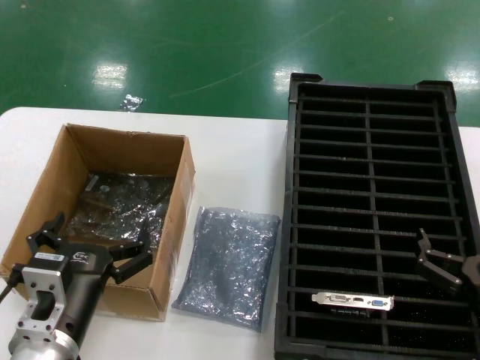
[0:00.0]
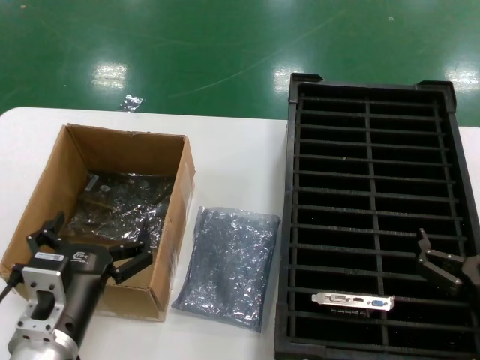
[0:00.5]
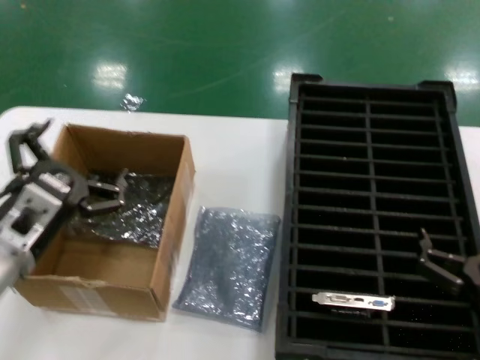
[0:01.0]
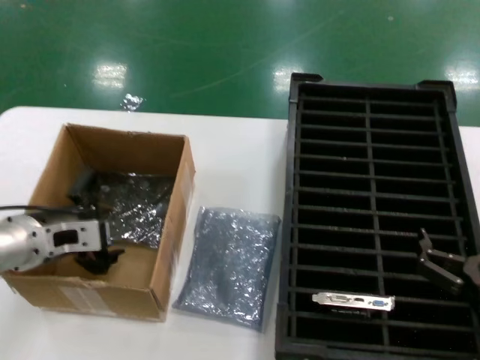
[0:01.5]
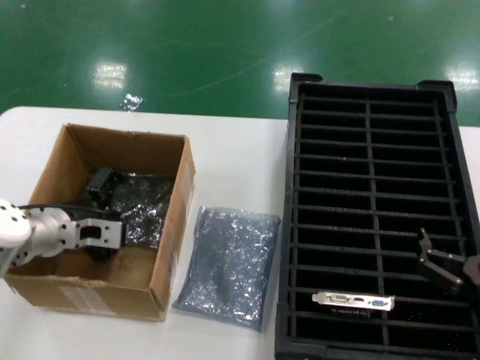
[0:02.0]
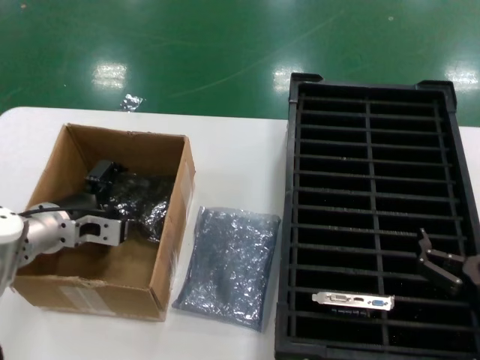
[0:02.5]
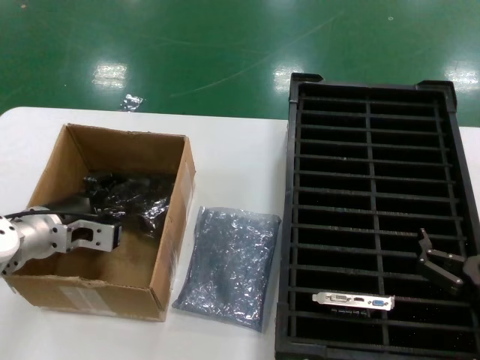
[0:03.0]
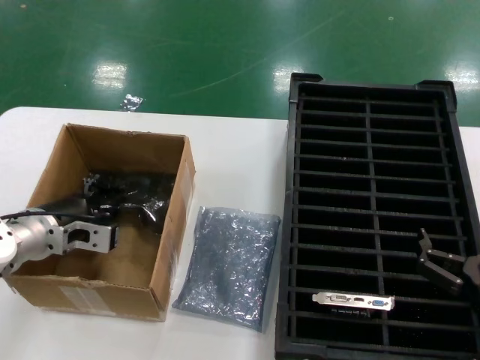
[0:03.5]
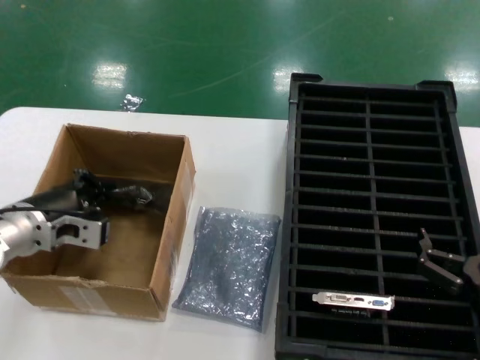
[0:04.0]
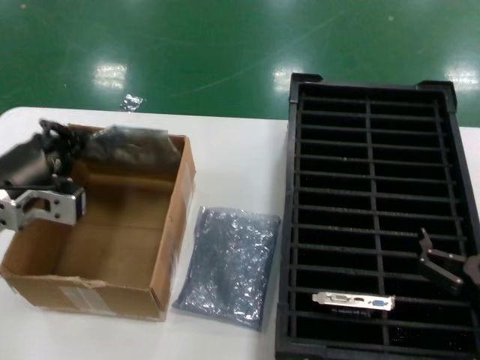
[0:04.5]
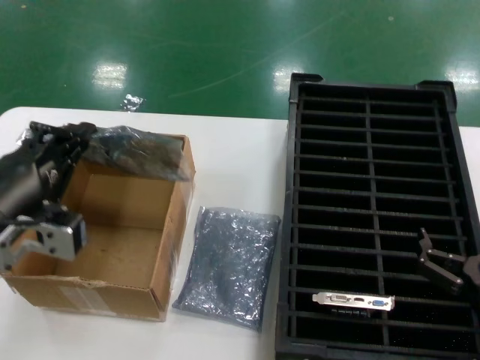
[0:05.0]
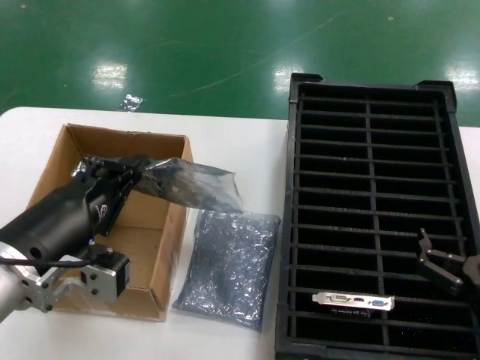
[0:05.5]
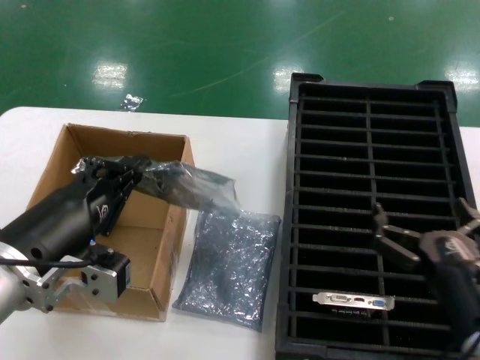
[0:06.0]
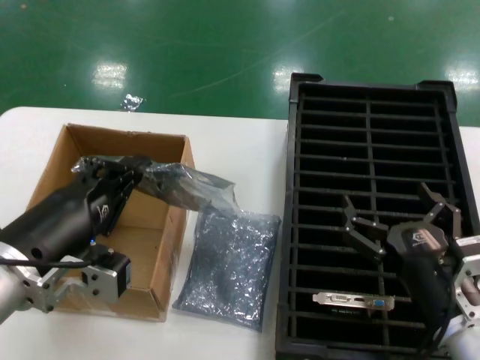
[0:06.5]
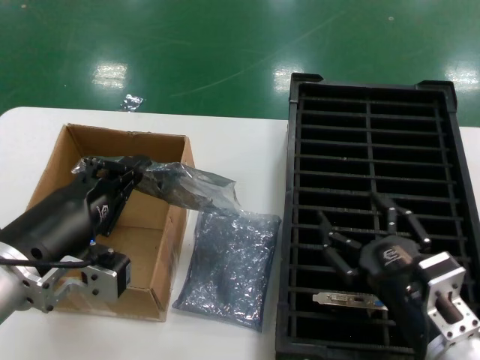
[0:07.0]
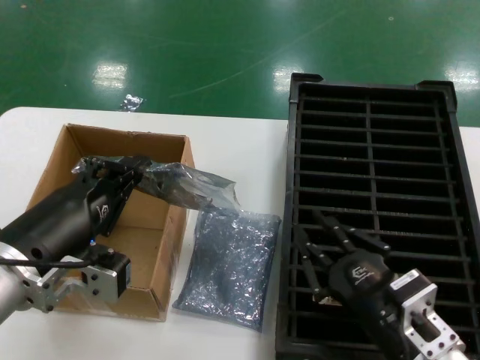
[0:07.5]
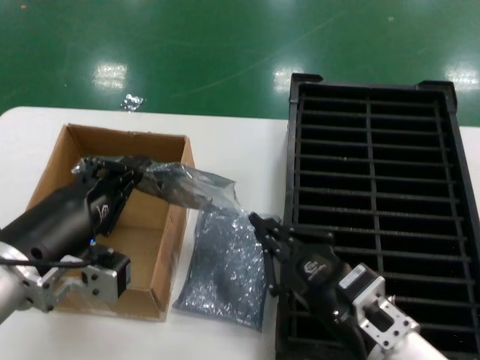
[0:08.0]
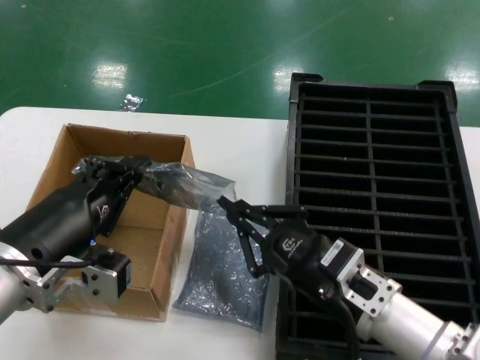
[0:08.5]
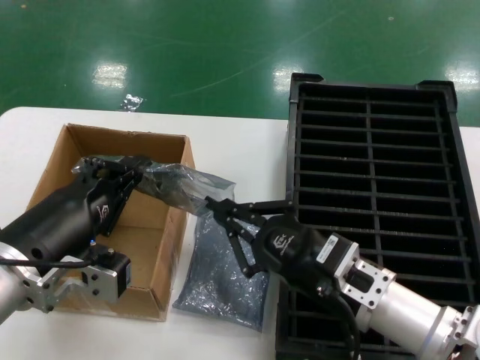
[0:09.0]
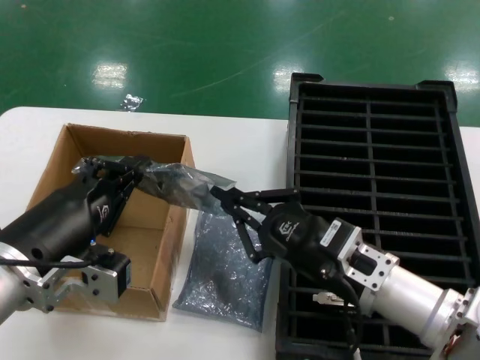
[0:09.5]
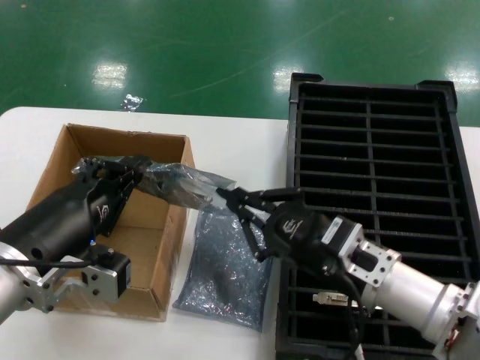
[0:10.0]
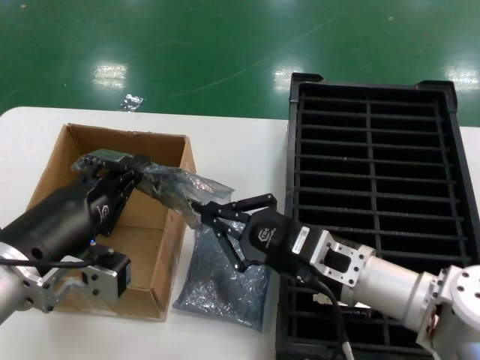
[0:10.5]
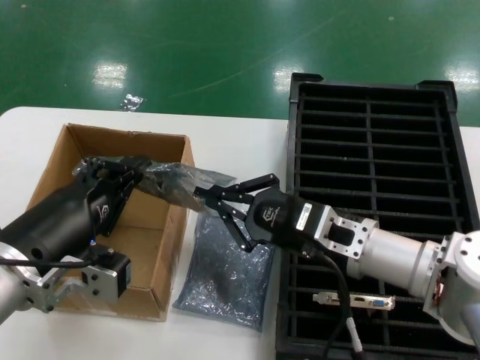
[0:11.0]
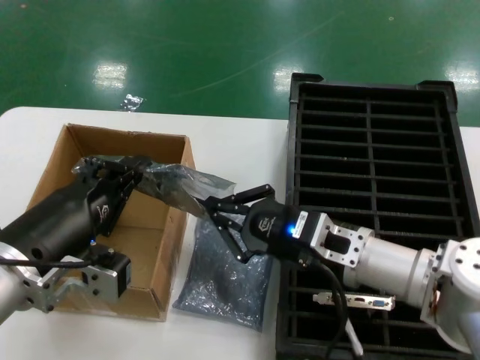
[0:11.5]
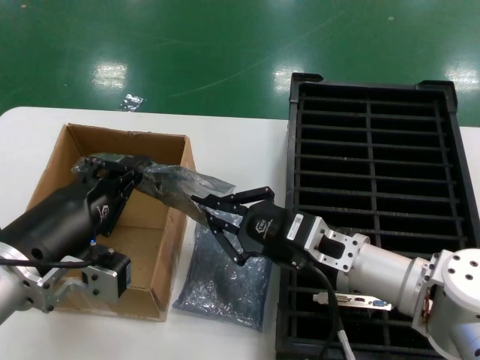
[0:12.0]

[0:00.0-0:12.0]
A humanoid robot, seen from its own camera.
Task of the whole recording: take out graphics card from box remove packaging put into black container.
Step, 0:00.0 to 0:03.5: Grasp the bag.
Step, 0:04.0 to 0:05.5: Lift the bag.
0:00.0 to 0:02.0: The left hand is displaced forward and to the left by some 20 cm.
0:02.0 to 0:04.0: The hands make only small movements.
0:04.0 to 0:06.0: The left hand heads backward and to the right, covering approximately 20 cm.
0:06.0 to 0:08.0: The right hand goes some 10 cm to the left.
0:08.0 to 0:10.0: The right hand shifts approximately 10 cm forward.
0:10.0 to 0:12.0: There are only small adjustments of the hands.

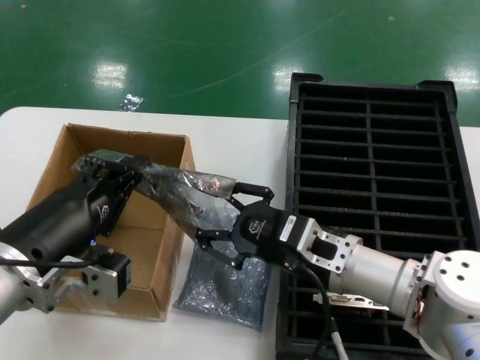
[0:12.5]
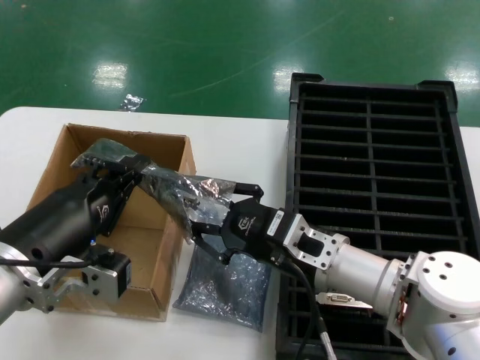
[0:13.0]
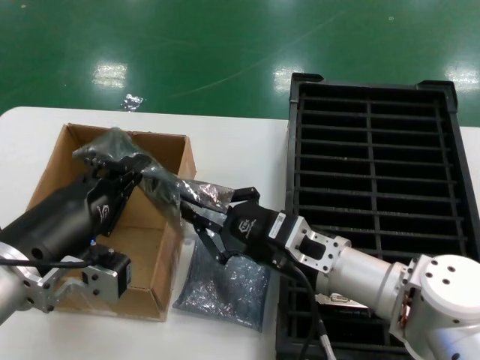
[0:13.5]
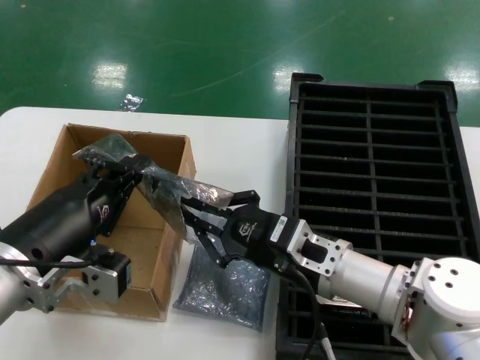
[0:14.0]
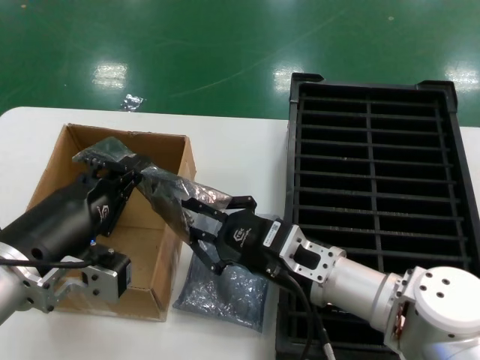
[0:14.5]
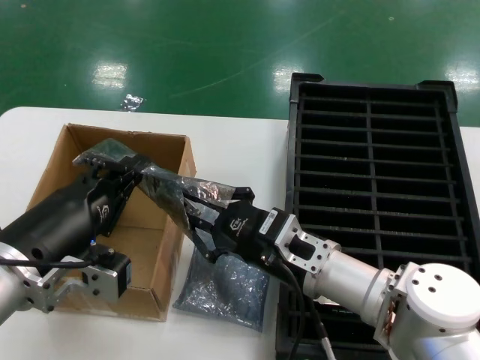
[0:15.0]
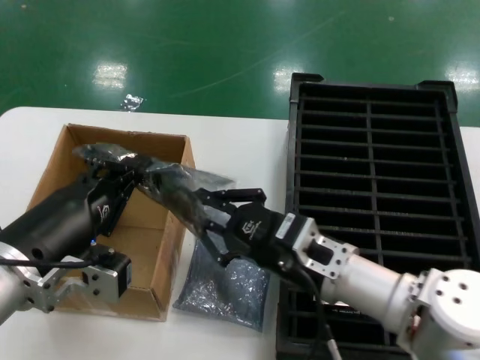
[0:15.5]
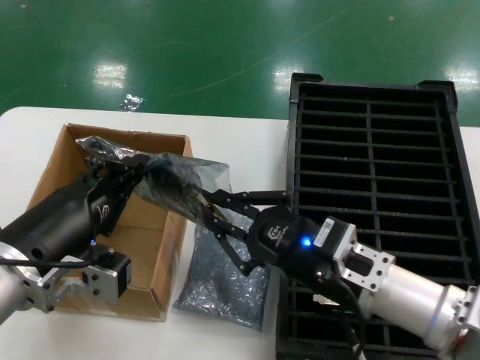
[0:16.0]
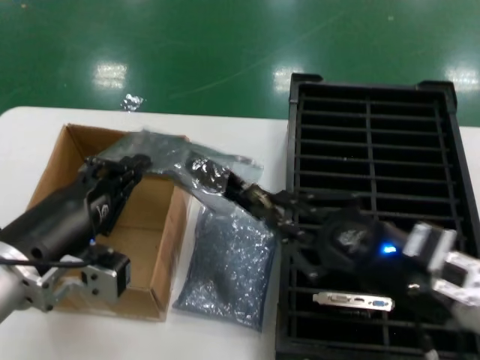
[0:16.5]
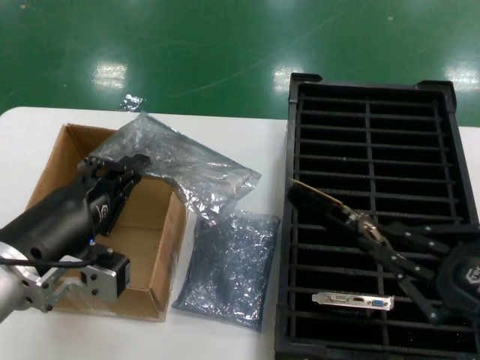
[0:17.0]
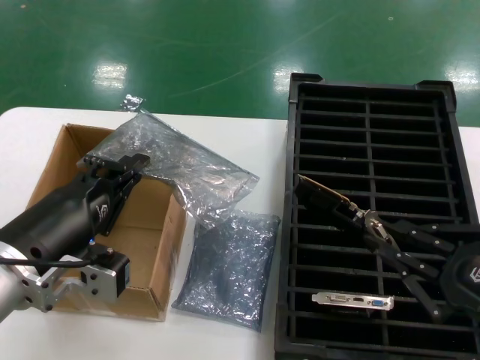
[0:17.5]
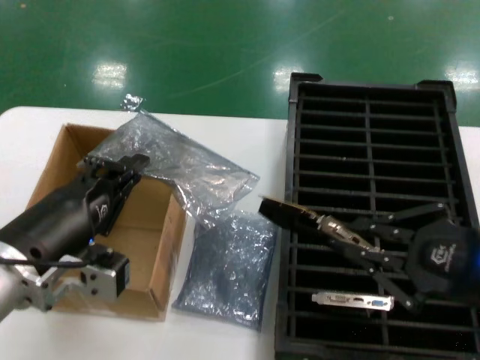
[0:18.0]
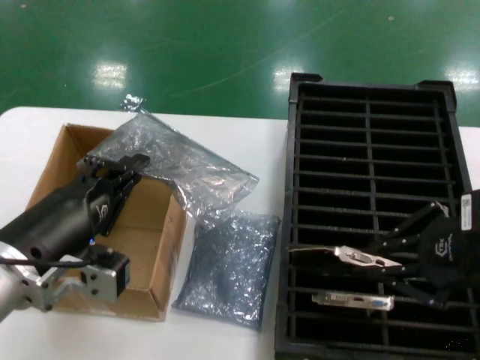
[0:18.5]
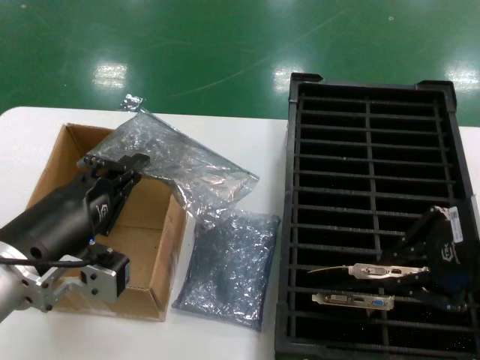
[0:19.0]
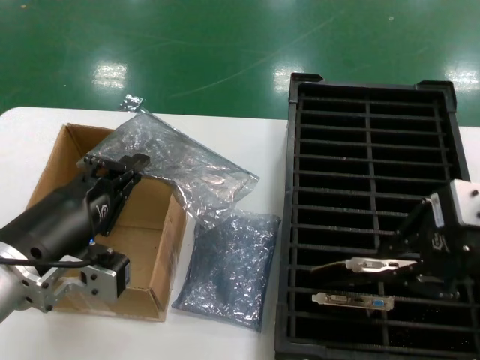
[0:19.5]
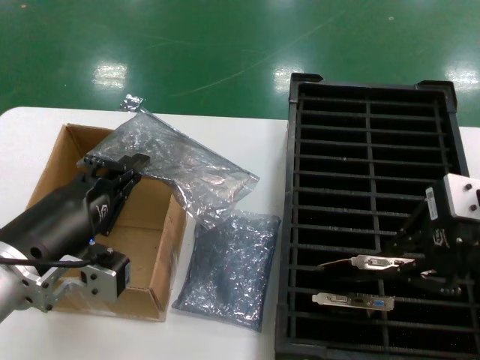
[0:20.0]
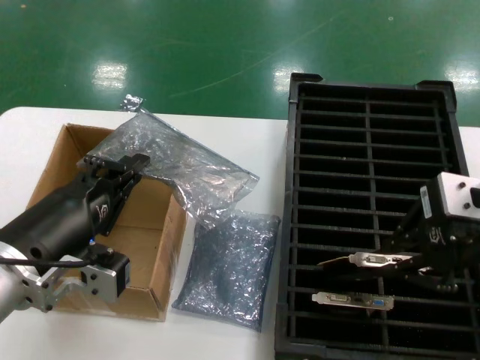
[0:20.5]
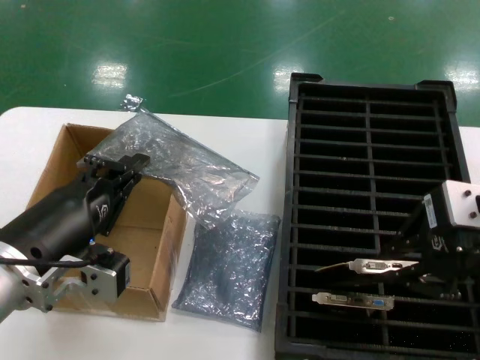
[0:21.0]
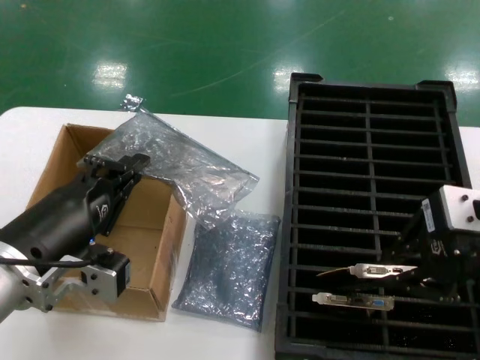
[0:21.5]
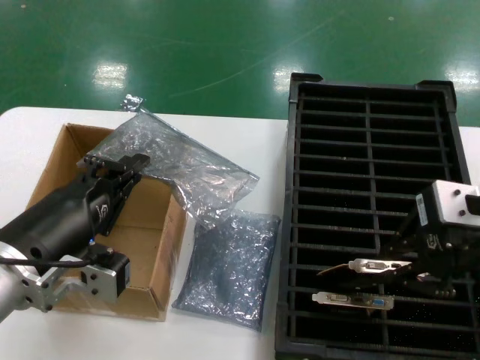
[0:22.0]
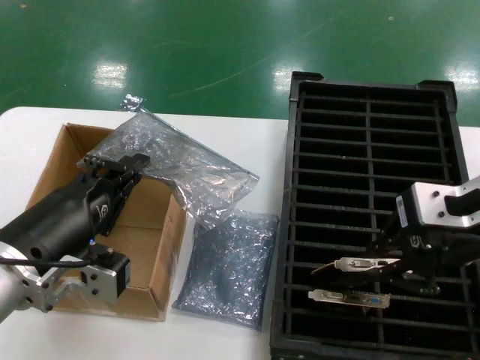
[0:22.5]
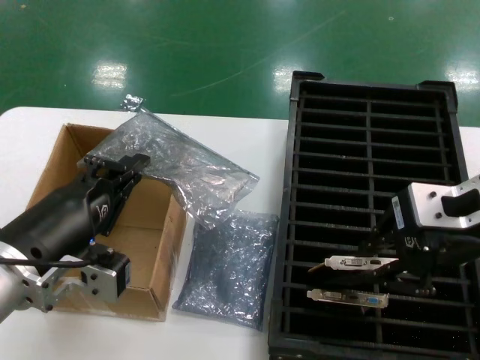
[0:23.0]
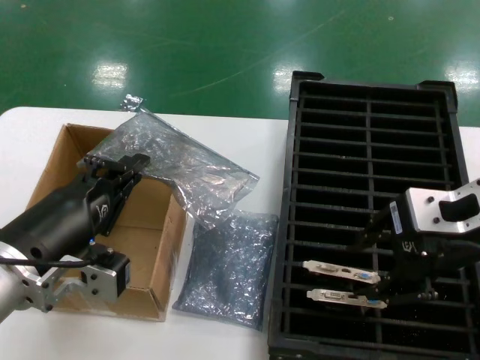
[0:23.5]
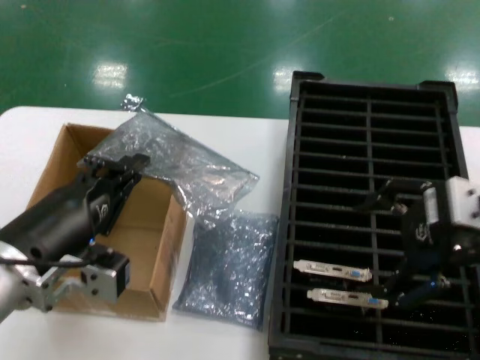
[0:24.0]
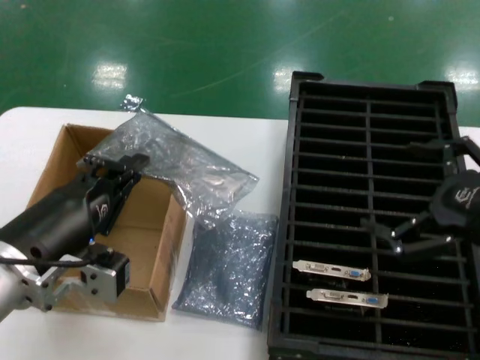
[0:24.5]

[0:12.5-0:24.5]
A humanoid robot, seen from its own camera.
Task of the whole recording: take out graphics card from box remove packaging put into black container.
Step, 0:12.5 to 0:16.5: Take out the hard disk of the bag.
Step, 0:17.0 to 0:23.5: Place the hard disk in the hard disk enclosure.
0:12.5 to 0:14.5: The hands make only small movements.
0:14.5 to 0:16.5: The right hand goes roughly 15 cm to the right, backward and upward.
0:16.5 to 0:18.5: The right hand goes approximately 15 cm upward.
0:18.5 to 0:20.5: The right hand moves approximately 5 cm.
0:20.5 to 0:22.5: There are only small adjustments of the hands.
0:22.5 to 0:24.5: The right hand is displaced to the right and downward by some 10 cm.

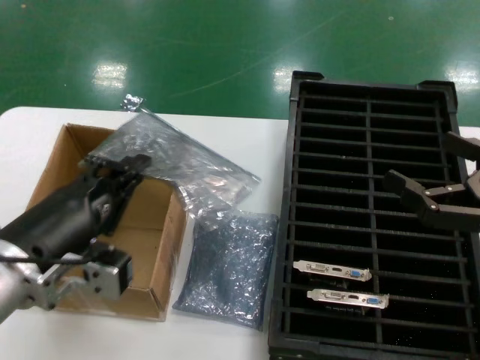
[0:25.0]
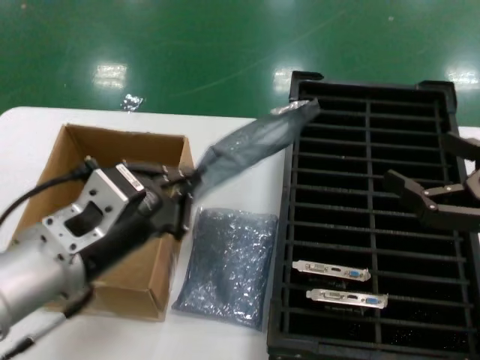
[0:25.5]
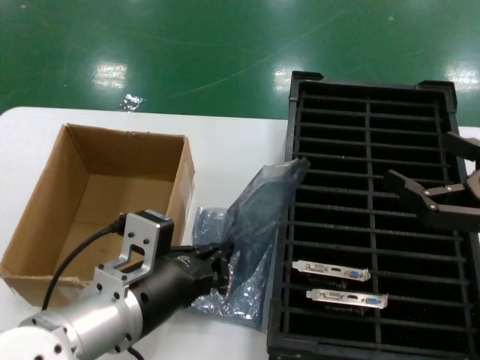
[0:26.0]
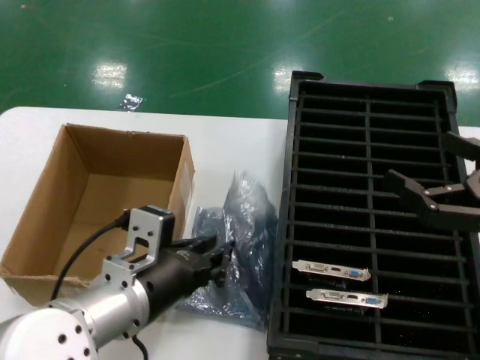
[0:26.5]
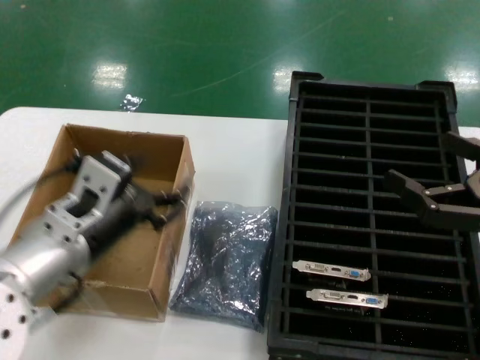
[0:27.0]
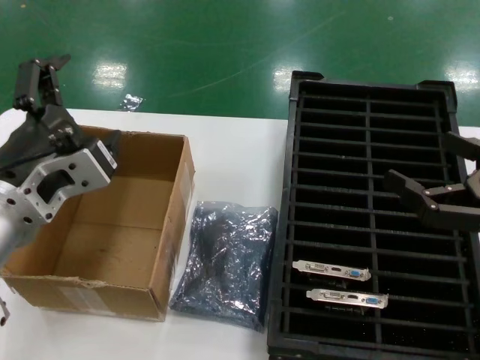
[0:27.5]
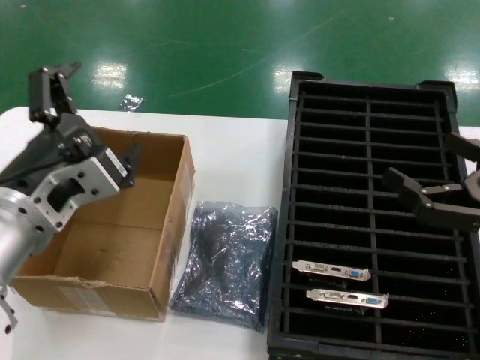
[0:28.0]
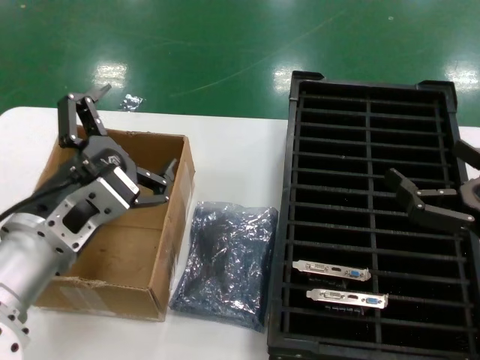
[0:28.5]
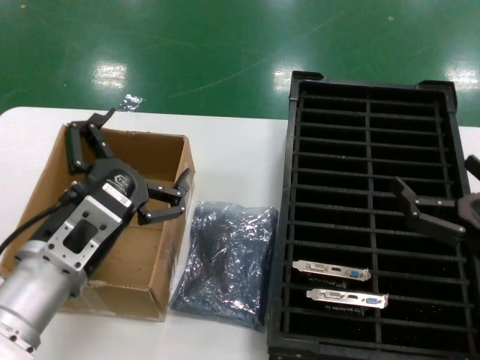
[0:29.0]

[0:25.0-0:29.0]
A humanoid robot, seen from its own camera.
Task of the whole recording: take out graphics card from box remove packaging put into black container.
Step, 0:25.0 to 0:26.5: Place the down the bag.
0:27.0 to 0:29.0: The right hand heads downward, covering some 10 cm.
